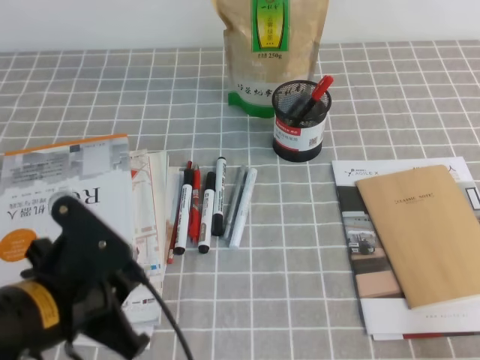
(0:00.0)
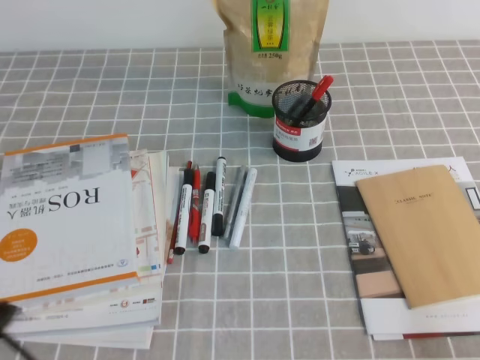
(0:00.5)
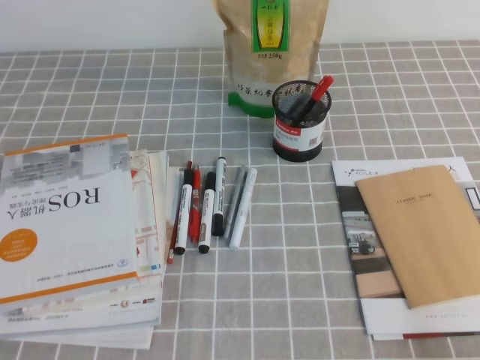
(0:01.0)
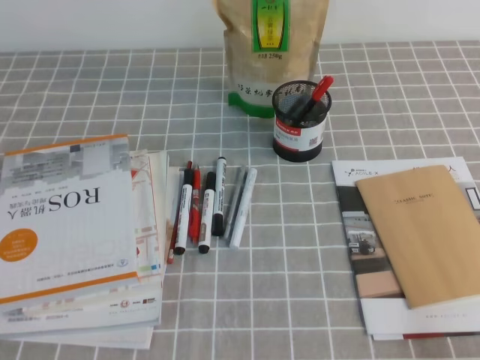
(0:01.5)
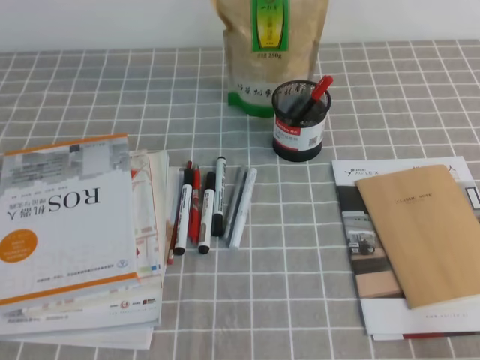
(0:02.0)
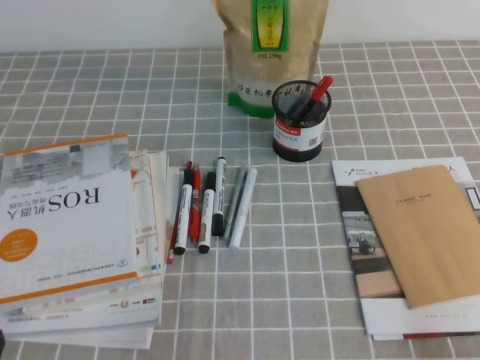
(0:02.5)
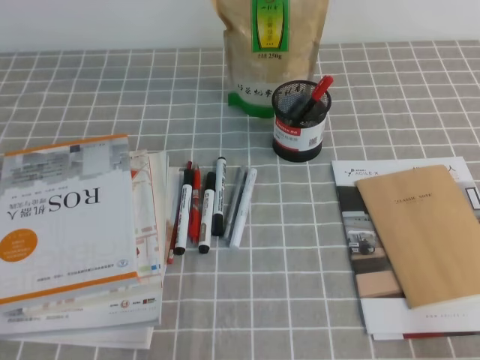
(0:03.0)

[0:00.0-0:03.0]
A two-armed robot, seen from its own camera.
Step, 0:00.0 to 0:03.0: Pick up the pen from the pen holder.
0:00.0 to 0:01.5: The left gripper heads to the left and backward, covering about 15 cm.
0:01.5 to 0:03.0: The left gripper goes some 10 cm downward.
